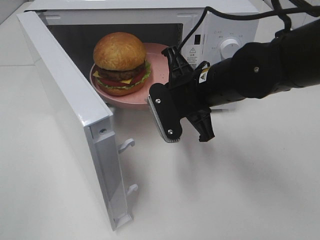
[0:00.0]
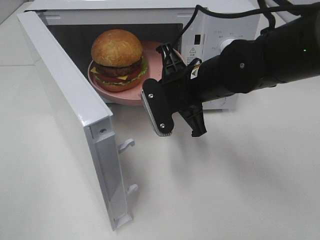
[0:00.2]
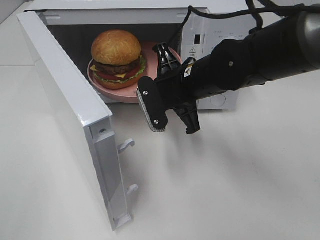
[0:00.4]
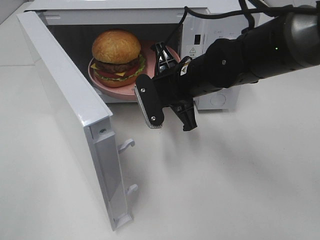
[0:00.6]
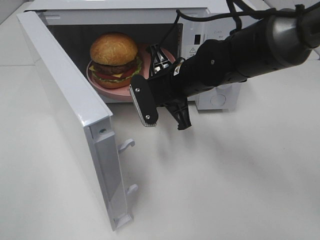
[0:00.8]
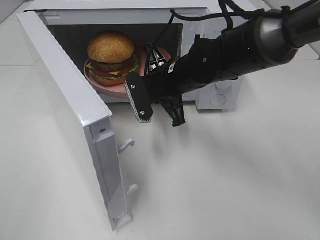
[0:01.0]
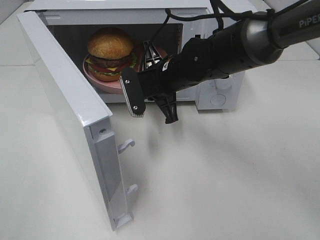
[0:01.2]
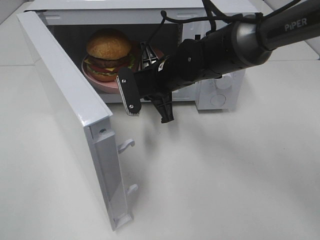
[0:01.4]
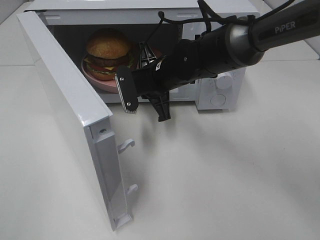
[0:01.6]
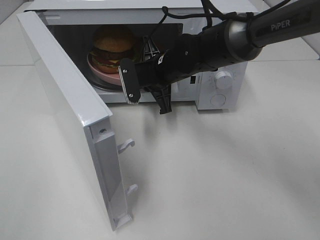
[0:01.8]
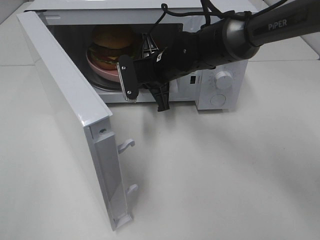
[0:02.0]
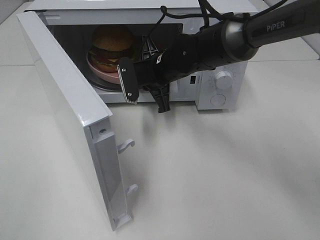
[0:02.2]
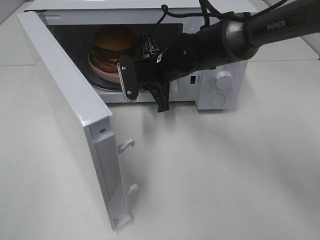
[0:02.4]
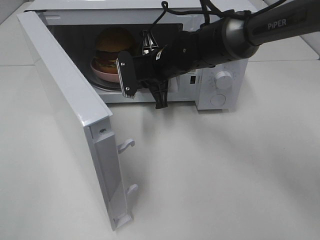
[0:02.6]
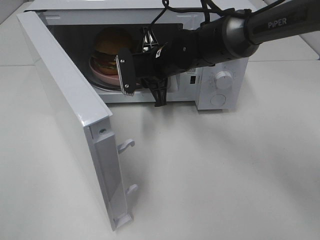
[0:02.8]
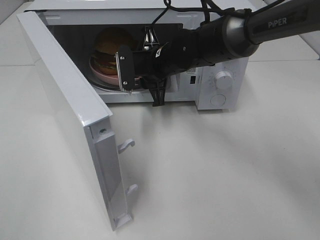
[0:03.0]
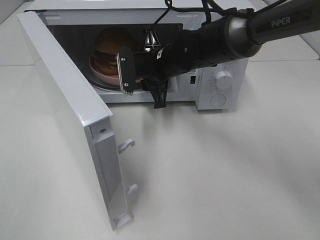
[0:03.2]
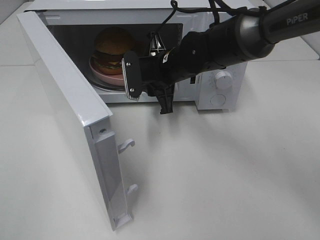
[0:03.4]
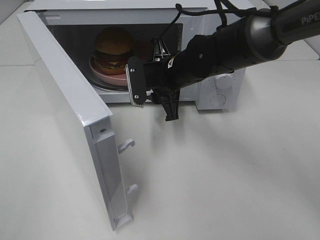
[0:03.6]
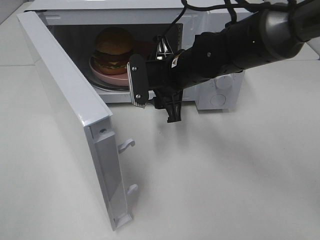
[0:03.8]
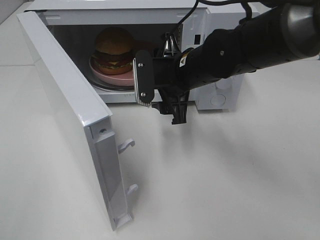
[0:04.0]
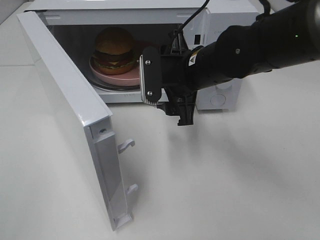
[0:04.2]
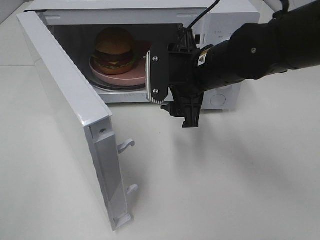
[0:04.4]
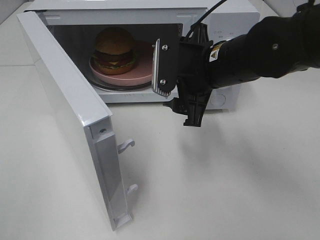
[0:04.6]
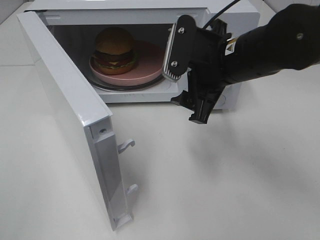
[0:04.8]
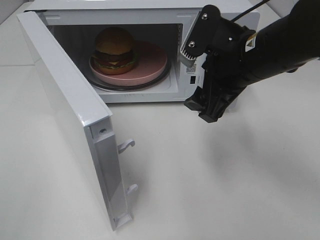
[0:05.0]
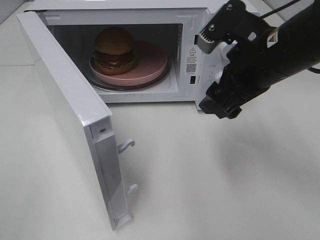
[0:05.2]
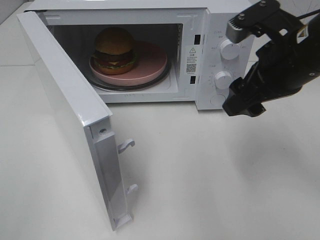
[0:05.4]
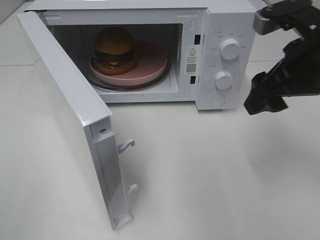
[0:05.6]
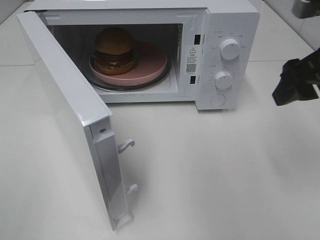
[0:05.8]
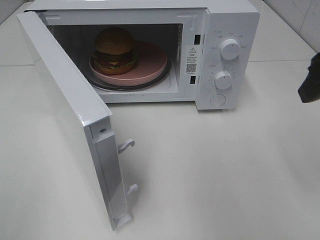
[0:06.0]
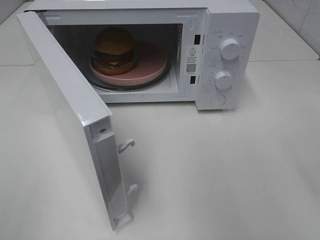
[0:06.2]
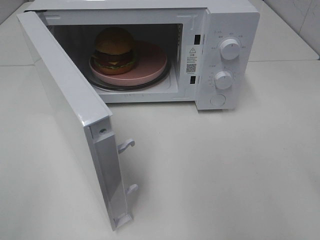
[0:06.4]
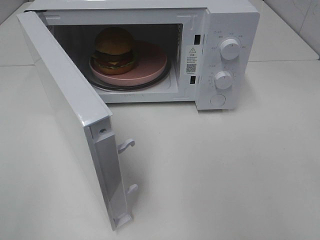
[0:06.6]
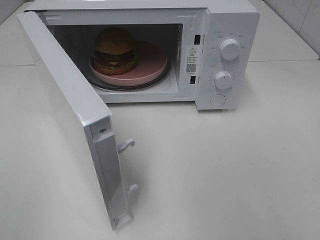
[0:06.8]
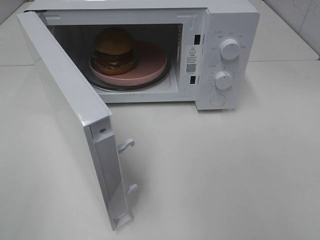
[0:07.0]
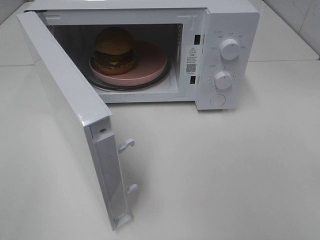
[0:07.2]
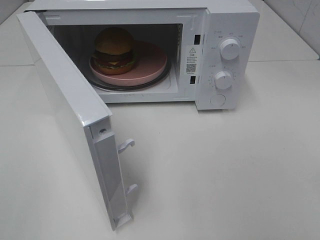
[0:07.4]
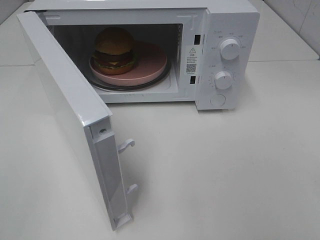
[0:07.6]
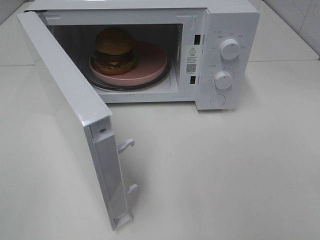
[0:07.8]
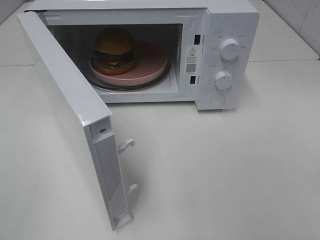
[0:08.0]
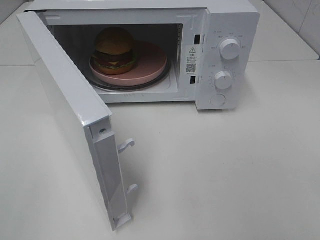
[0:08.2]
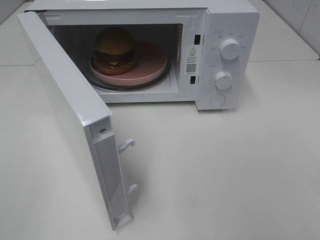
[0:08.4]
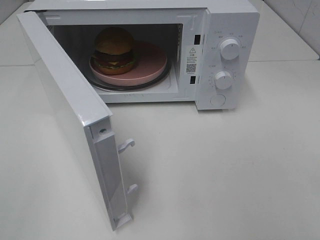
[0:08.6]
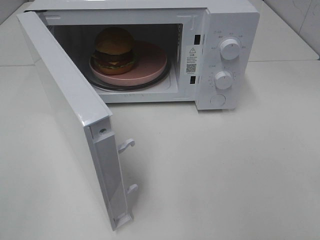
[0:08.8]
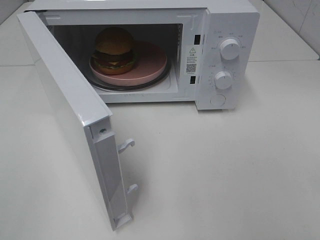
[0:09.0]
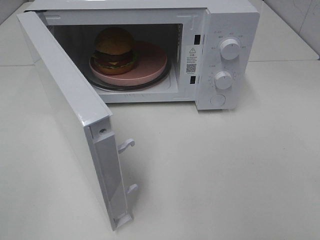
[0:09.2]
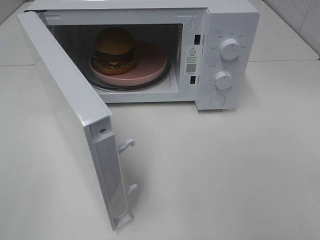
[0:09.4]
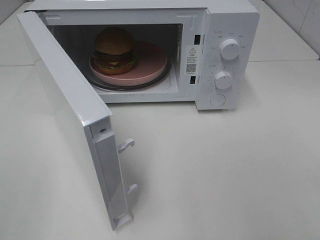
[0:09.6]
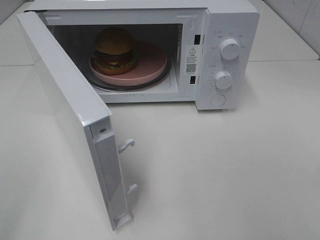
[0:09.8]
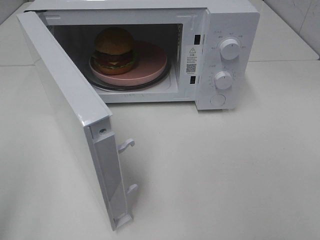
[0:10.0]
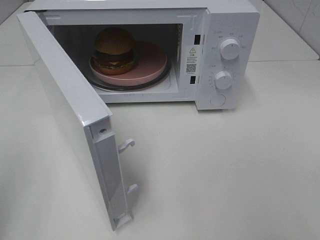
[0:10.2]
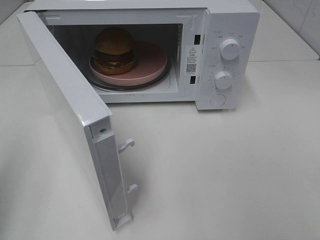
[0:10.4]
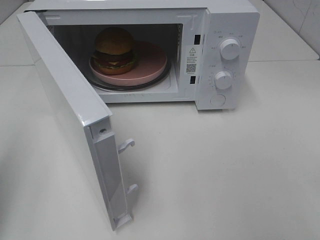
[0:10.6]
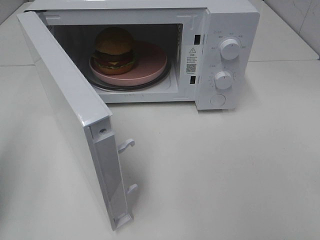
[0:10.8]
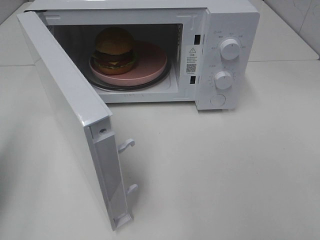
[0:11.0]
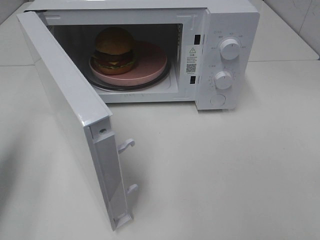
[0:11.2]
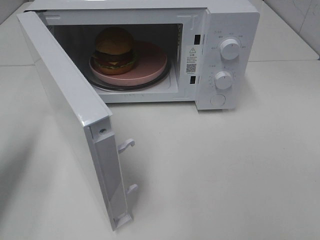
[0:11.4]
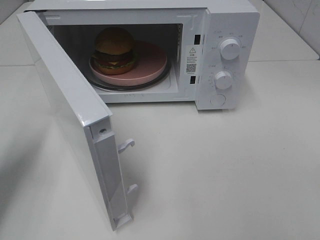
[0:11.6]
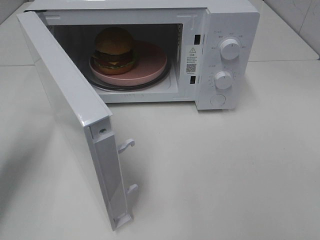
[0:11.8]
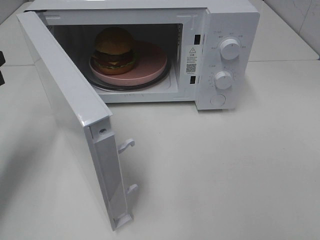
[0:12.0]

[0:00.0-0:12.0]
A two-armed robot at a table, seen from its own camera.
Task of the whole recording: Heat the burger.
Step, 0:00.0 to 0:02.8: Right hand: place the plate in the microwave.
0:00.0 to 0:01.6: The right gripper goes about 10 cm forward and to the left.
0:01.6 to 0:03.0: There are only small adjustments of the grippers.
0:03.0 to 0:04.4: The right gripper moves backward and to the right, approximately 10 cm, and opens.
0:04.4 to 0:06.0: The right gripper shifts about 25 cm to the right, upward and backward.
0:06.0 to 0:07.6: The right gripper moves backward, some 20 cm.
0:07.6 to 0:09.0: Both grippers stay put.
0:10.4 to 0:12.0: The left gripper is displaced forward and downward by roughly 20 cm.

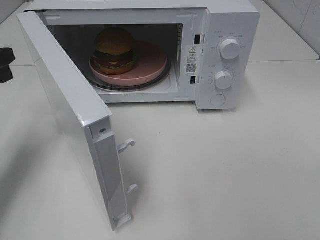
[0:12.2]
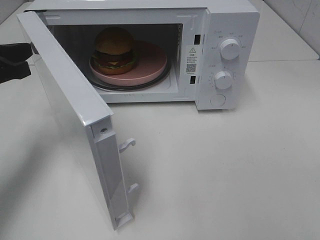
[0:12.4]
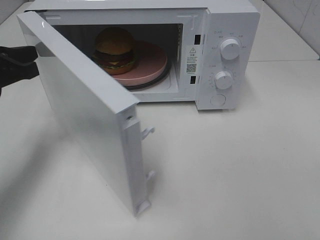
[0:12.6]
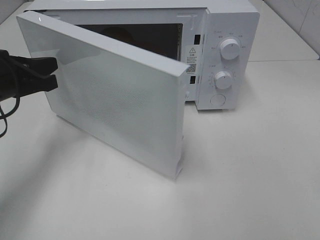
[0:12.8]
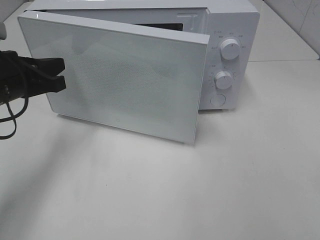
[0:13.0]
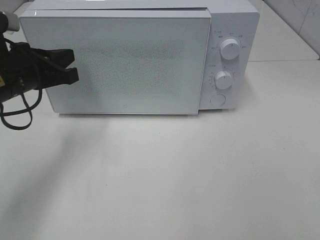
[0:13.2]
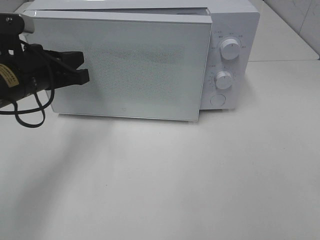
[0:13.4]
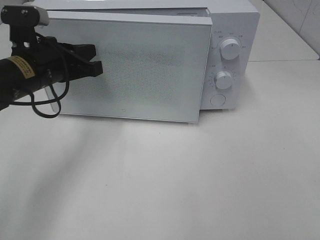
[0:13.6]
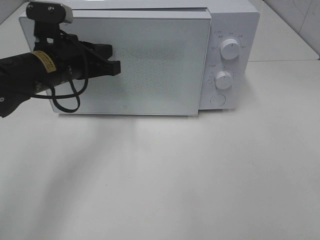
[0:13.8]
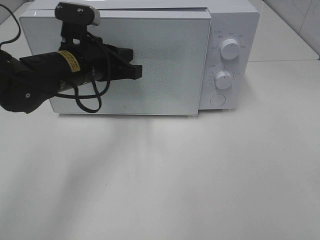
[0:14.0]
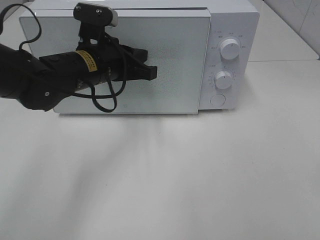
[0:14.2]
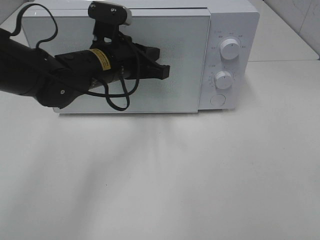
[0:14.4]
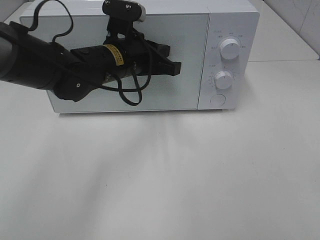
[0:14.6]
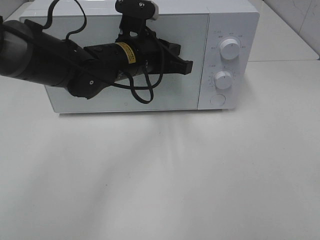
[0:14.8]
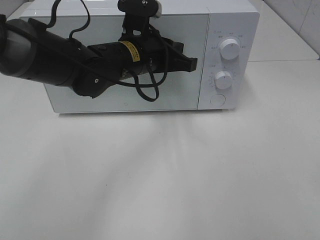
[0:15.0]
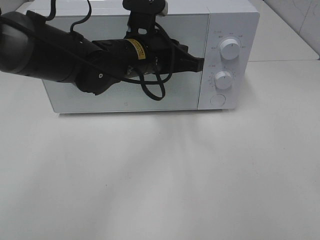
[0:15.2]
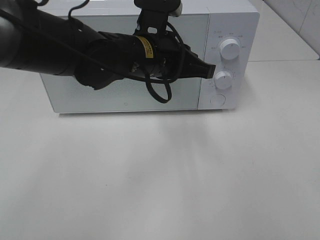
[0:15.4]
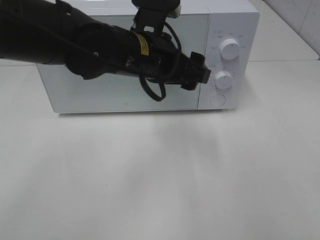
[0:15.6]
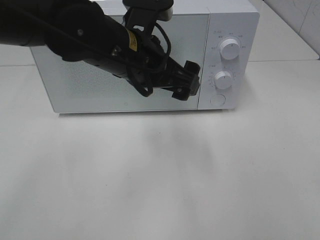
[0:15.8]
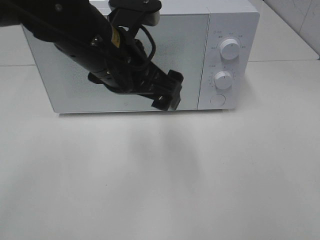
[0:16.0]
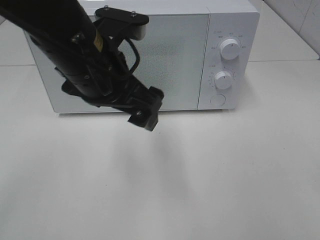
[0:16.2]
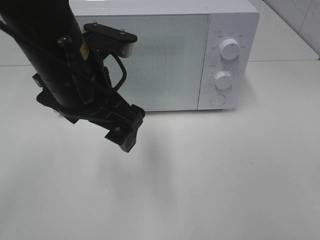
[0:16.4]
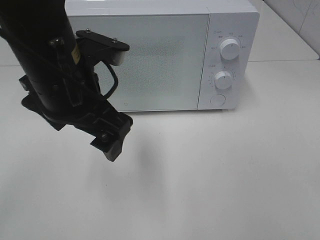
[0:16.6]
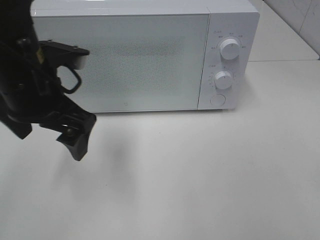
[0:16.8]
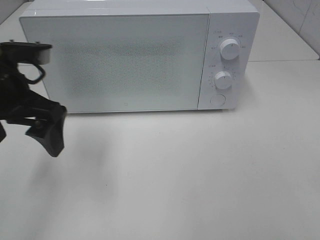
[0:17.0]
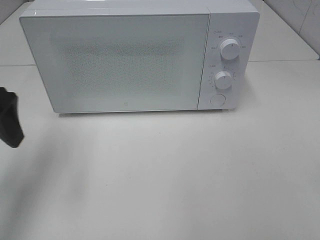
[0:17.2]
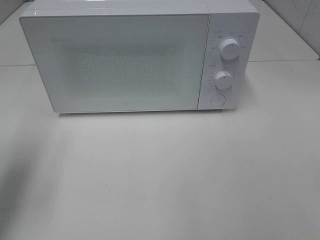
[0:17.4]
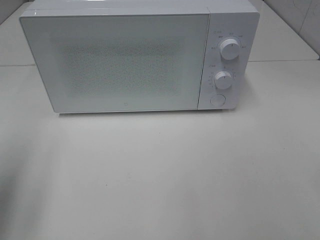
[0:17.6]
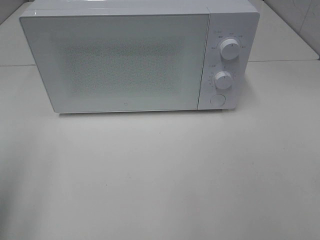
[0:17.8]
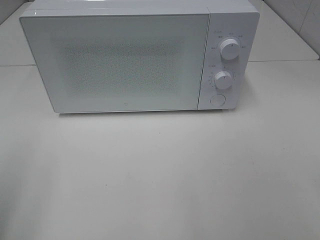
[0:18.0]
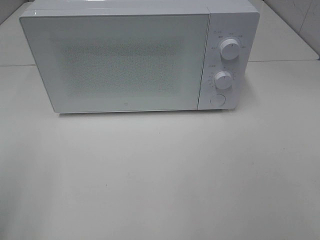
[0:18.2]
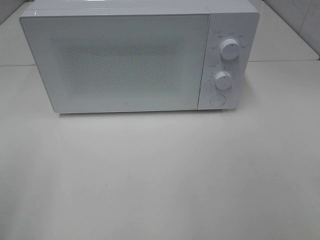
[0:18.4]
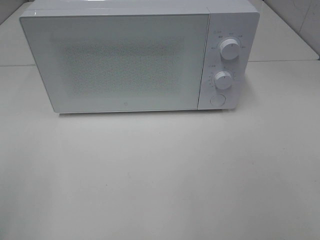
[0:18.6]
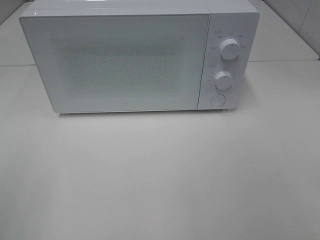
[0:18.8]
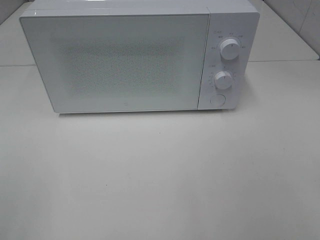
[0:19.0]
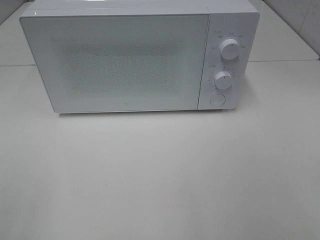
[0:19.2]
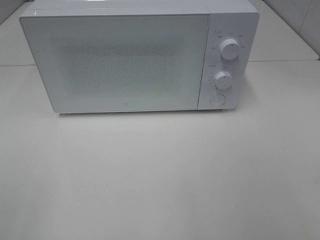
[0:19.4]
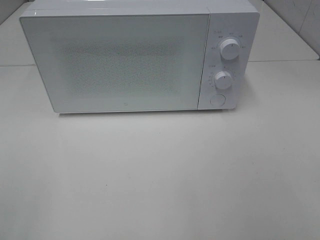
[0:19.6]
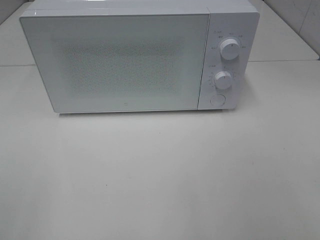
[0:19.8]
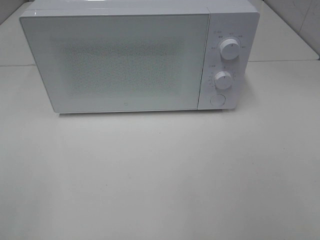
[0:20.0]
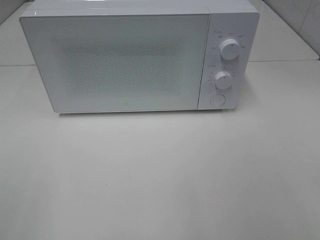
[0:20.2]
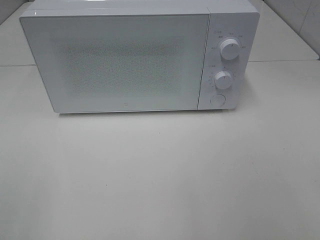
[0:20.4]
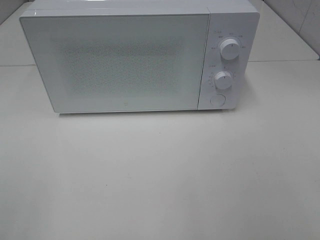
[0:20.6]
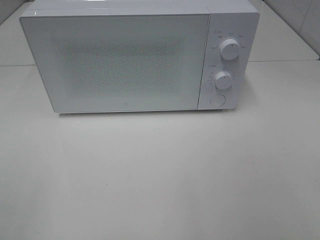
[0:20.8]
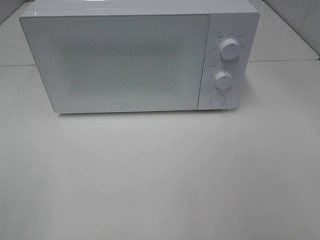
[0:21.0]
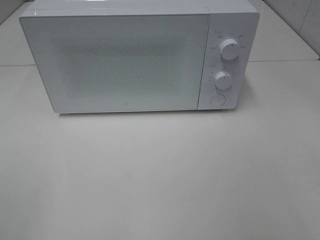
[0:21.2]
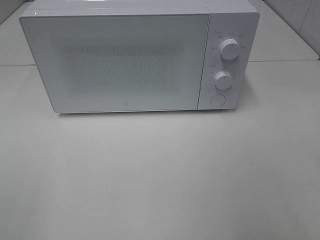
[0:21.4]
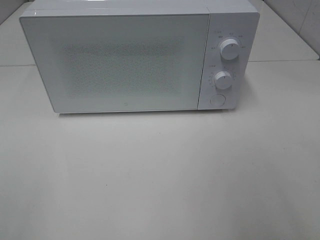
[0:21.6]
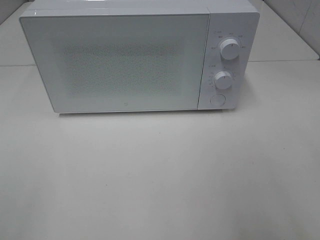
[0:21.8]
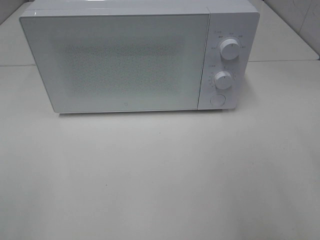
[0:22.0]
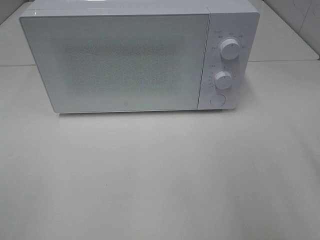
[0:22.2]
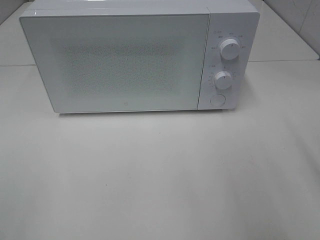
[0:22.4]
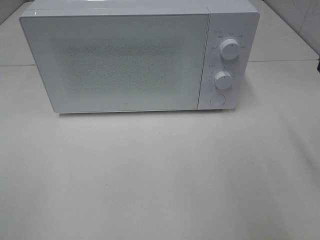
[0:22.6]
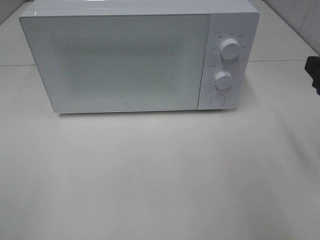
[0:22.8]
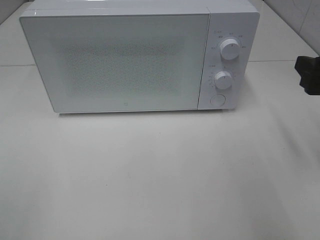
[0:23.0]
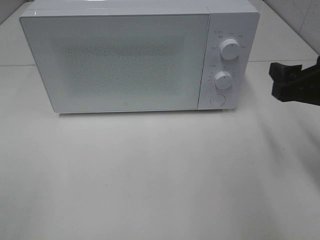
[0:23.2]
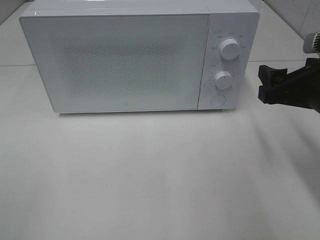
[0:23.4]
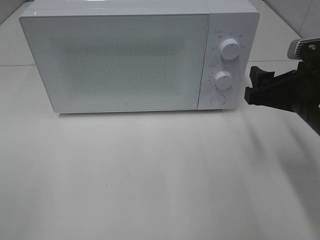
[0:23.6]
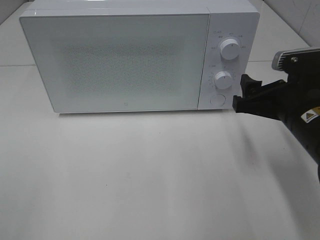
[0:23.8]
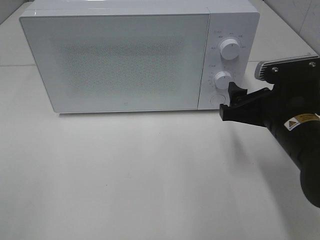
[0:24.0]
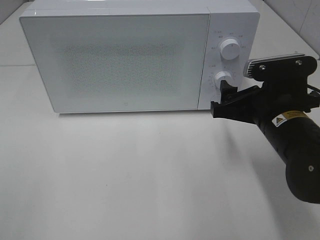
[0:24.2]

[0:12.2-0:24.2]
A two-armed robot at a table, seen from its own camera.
Task of the whole recording: Heat the burger.
Step, 0:12.2 to 0:15.0: Left hand: close the microwave door.
0:12.2 to 0:13.8: The left gripper travels to the right by about 15 cm.
0:13.8 to 0:15.2: The left gripper is displaced to the right by approximately 15 cm.
0:15.2 to 0:16.6: The left gripper moves backward, to the left and upward, approximately 15 cm, and opens up.
0:16.6 to 0:18.2: The left gripper travels to the left and backward by about 30 cm.
0:22.6 to 0:24.2: The right gripper moves to the left, downward and forward, some 15 cm.
